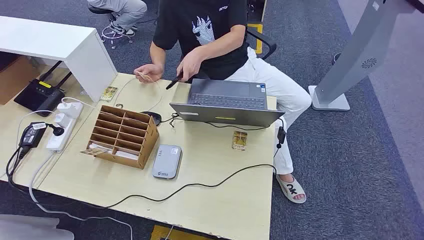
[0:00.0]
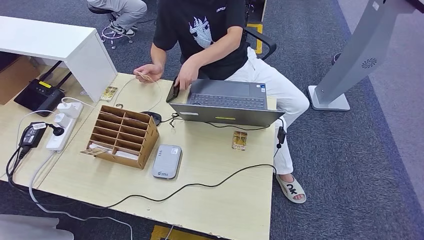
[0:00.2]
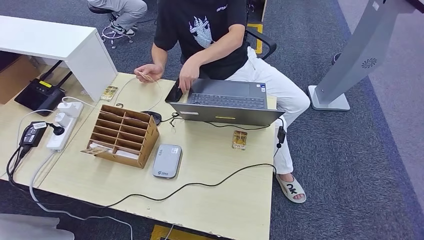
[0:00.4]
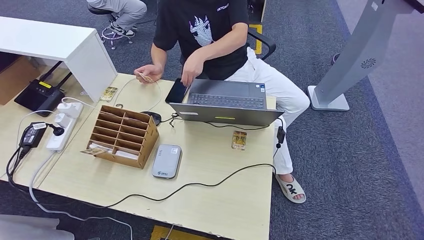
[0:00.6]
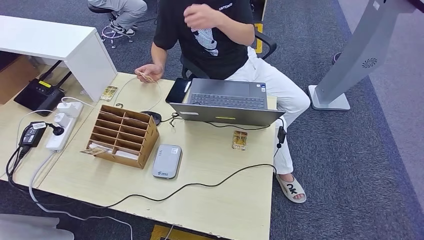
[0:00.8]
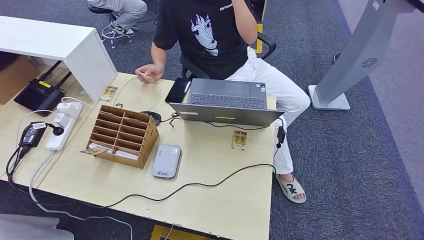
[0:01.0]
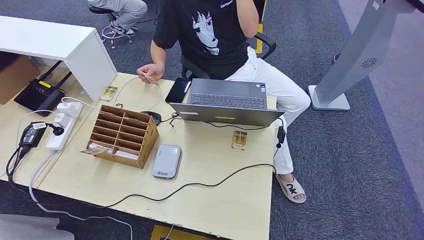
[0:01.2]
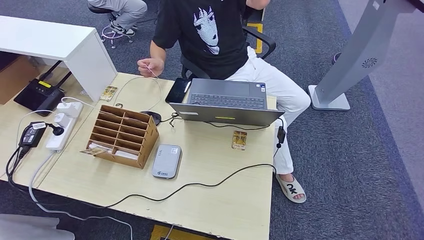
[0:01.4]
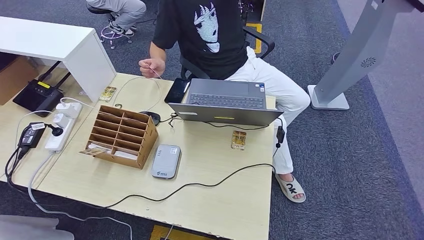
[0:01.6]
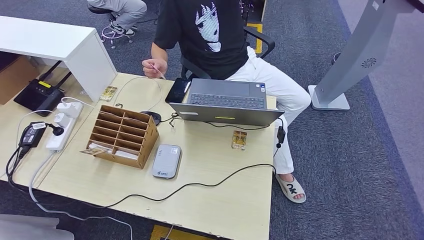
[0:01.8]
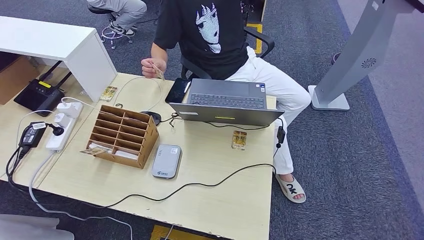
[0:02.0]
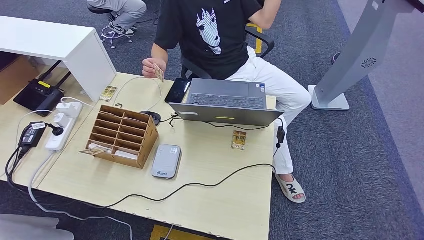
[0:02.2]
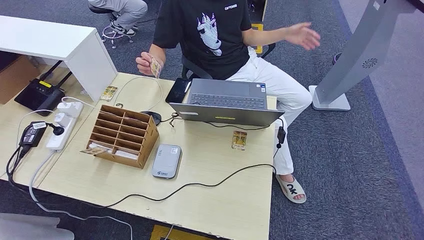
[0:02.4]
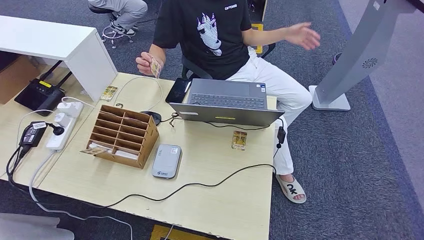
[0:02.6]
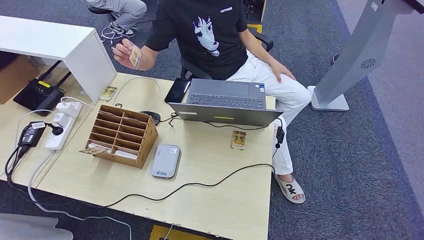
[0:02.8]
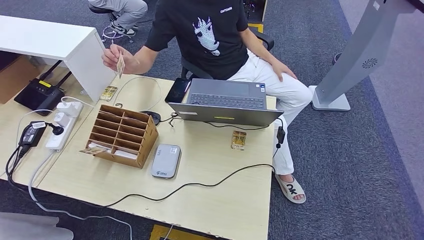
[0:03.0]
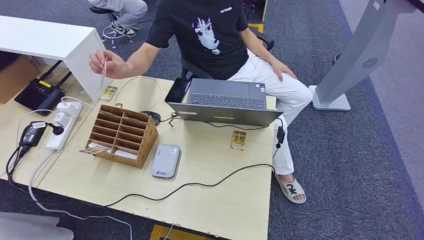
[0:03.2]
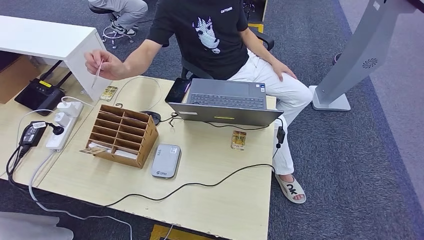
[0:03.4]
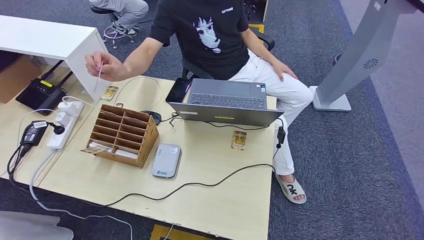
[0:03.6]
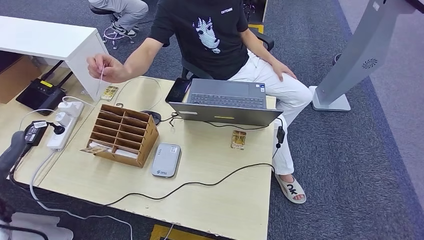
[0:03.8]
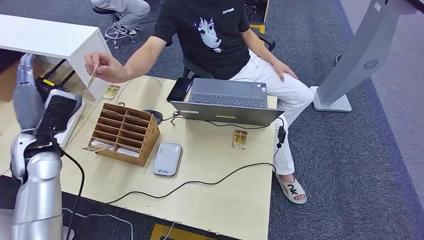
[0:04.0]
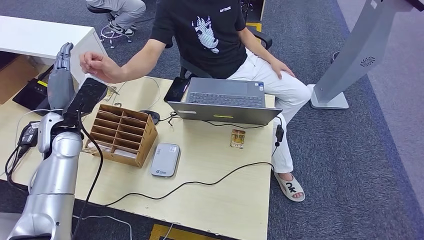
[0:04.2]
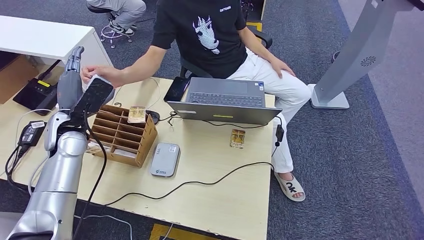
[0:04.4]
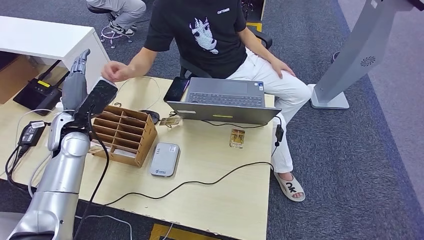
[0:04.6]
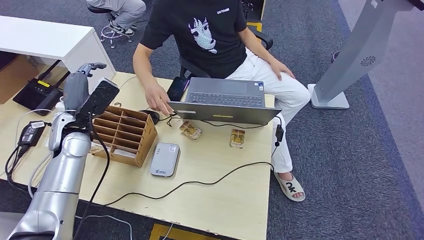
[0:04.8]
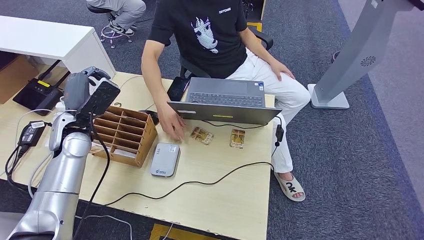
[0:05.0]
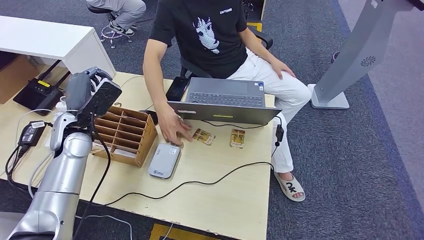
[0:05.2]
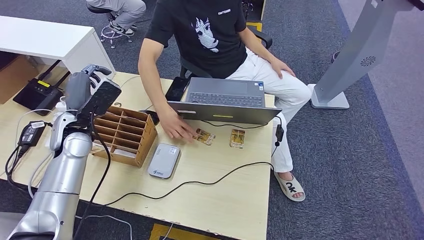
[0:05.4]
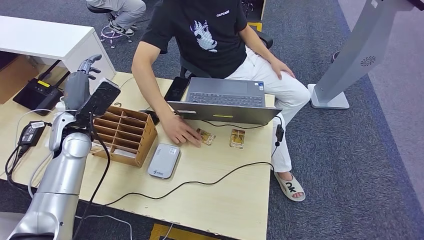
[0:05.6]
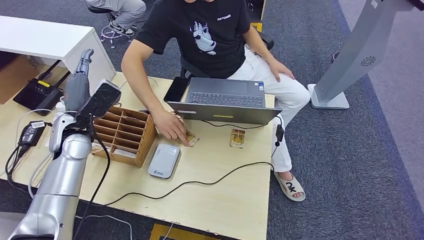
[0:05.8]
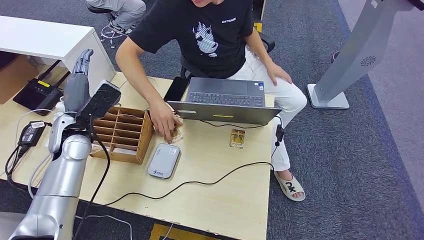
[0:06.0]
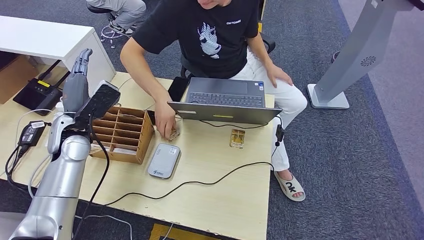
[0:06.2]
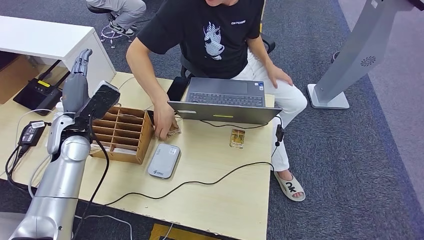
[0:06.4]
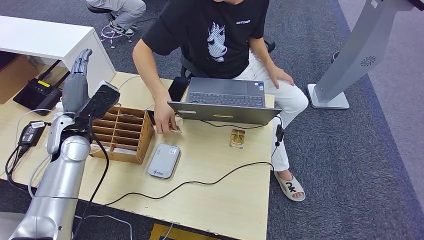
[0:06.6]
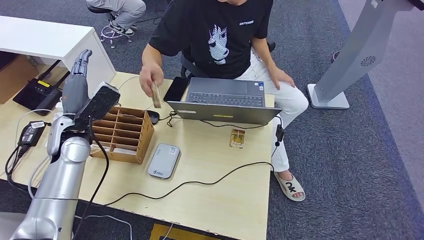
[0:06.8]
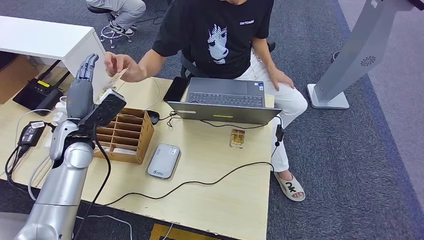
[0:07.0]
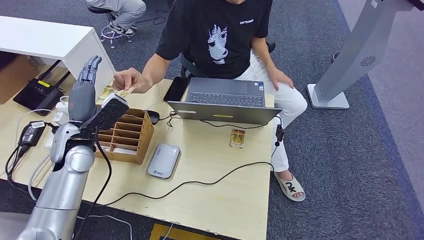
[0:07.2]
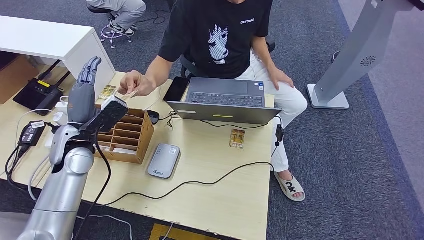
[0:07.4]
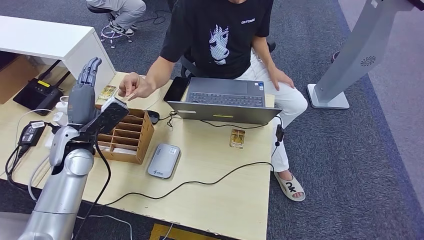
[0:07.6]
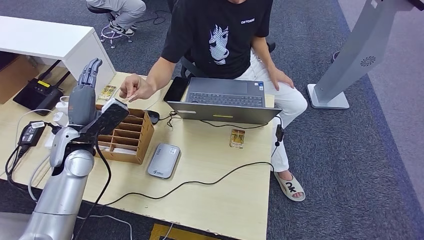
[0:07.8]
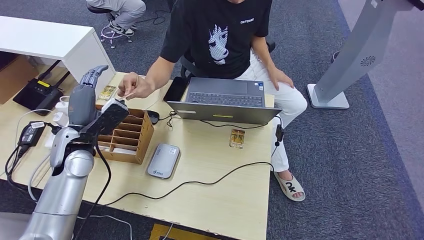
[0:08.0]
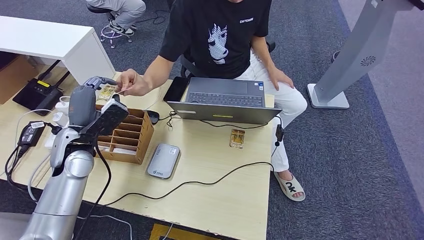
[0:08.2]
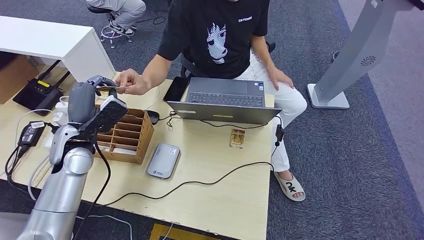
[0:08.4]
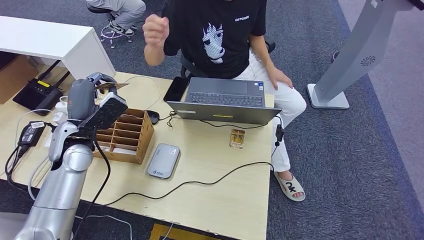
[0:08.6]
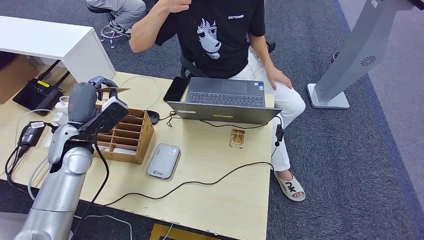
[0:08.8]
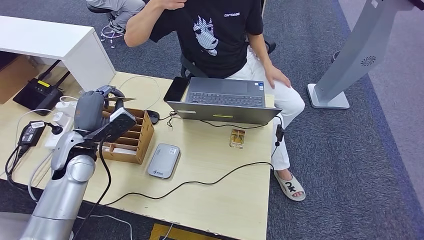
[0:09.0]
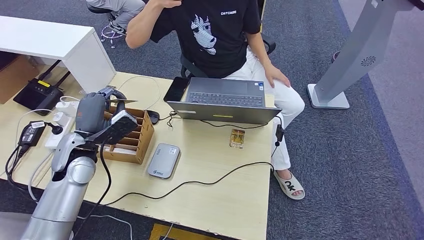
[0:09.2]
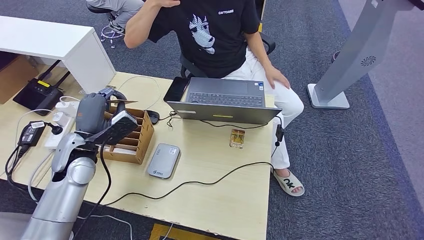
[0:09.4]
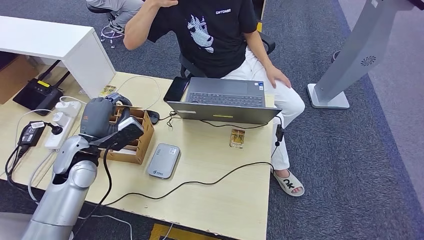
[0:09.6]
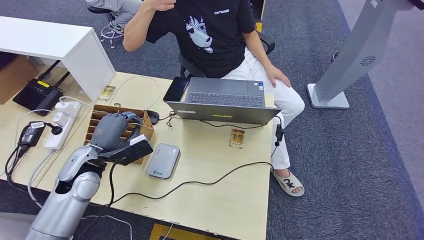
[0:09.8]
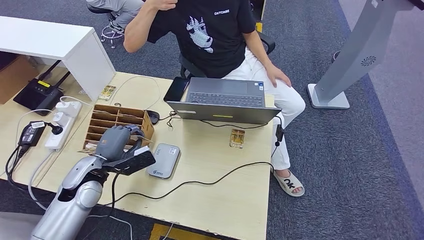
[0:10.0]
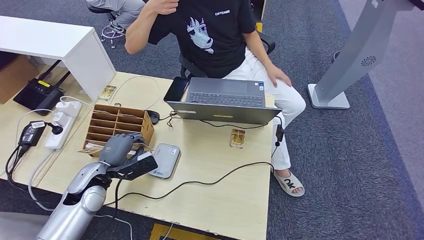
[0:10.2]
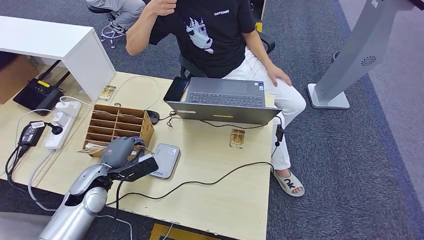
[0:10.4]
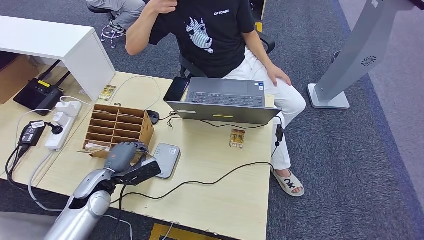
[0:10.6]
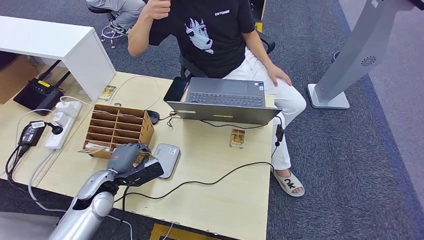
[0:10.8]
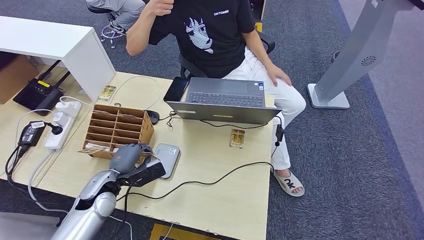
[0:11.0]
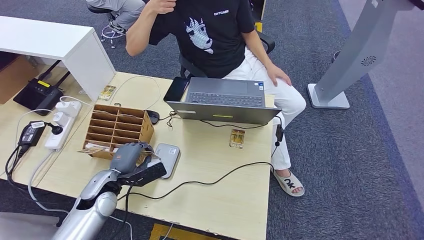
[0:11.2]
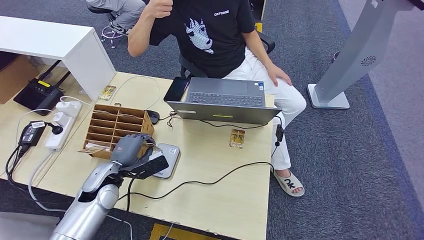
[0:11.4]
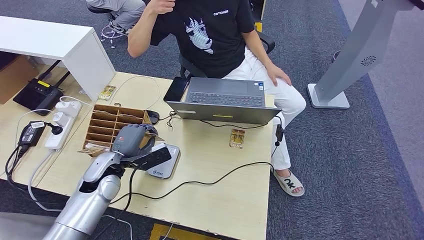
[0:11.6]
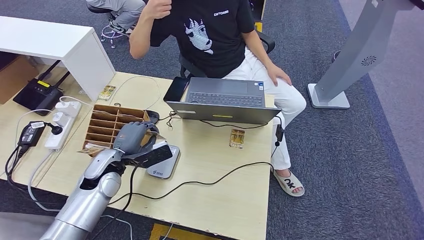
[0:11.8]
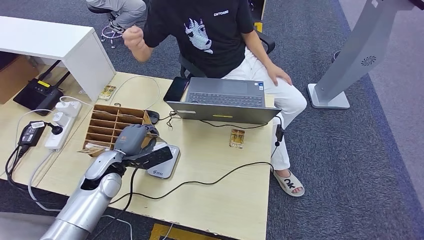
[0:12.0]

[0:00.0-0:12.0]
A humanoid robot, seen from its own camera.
Step, 0:00.0 to 0:08.4: Take the ID card from the person's hand.
0:01.6 to 0:03.0: The left hand travels upward by approximately 30 cm.
0:03.0 to 0:04.4: The left hand moves forward, about 25 cm.
0:04.4 to 0:06.0: Neither hand changes place.
0:06.0 to 0:09.0: There are only small adjustments of the hands.
0:09.0 to 0:10.4: The left hand moves downward, roughly 10 cm.
0:10.4 to 0:12.0: The left hand changes place by approximately 5 cm.

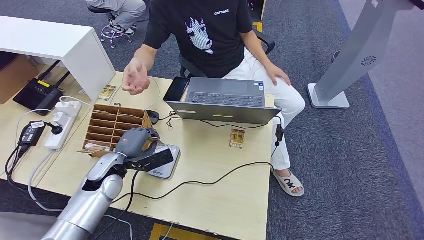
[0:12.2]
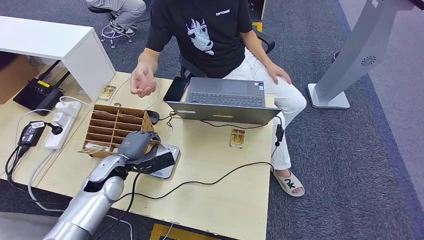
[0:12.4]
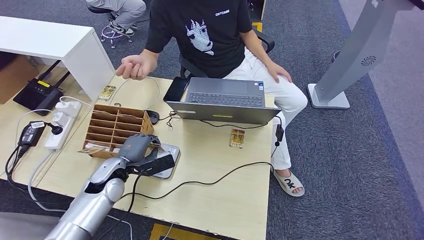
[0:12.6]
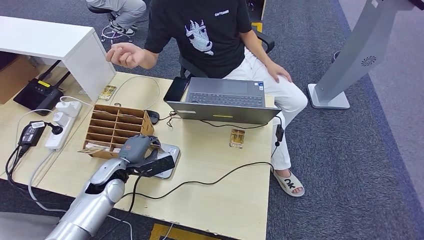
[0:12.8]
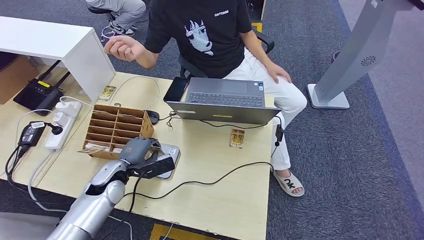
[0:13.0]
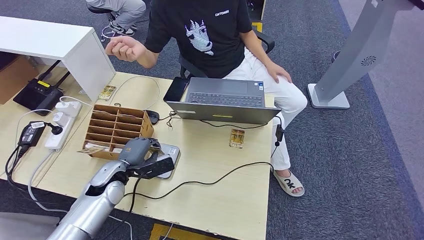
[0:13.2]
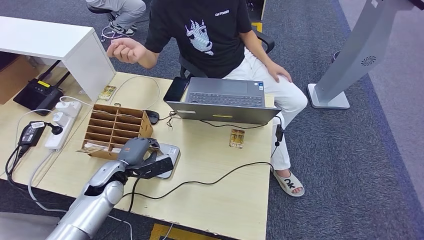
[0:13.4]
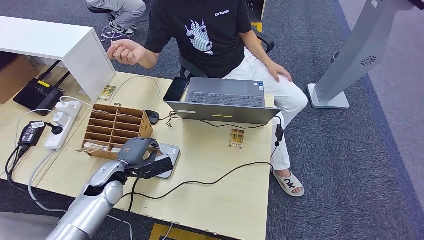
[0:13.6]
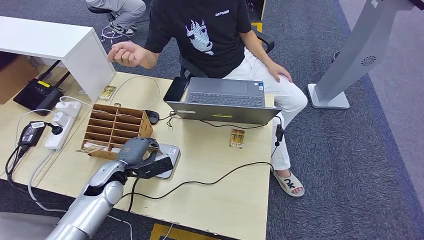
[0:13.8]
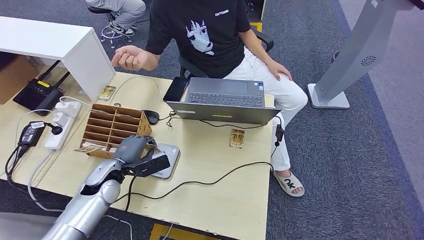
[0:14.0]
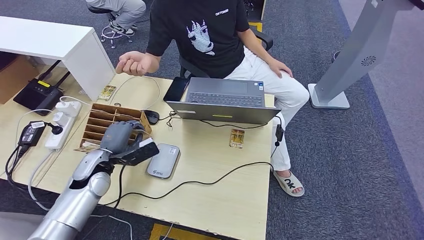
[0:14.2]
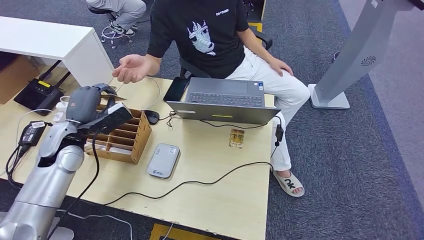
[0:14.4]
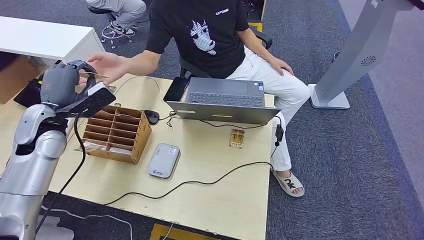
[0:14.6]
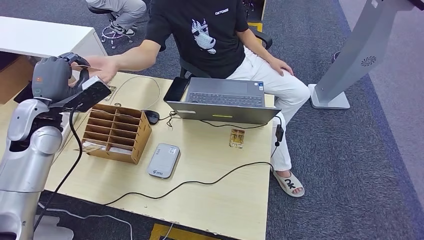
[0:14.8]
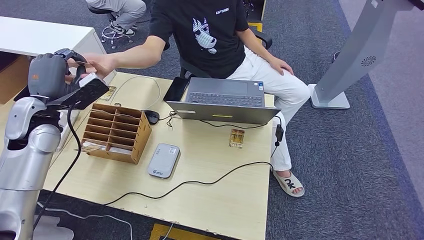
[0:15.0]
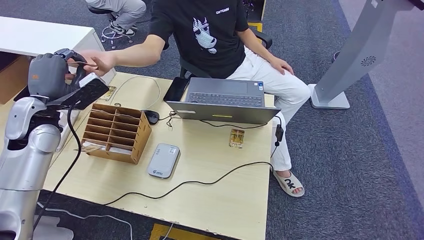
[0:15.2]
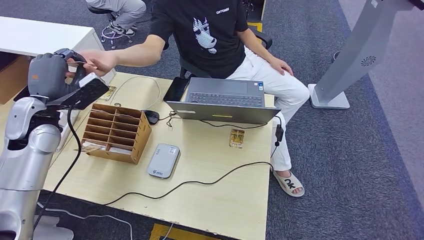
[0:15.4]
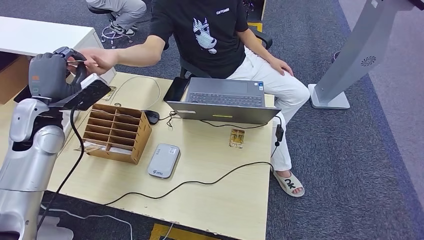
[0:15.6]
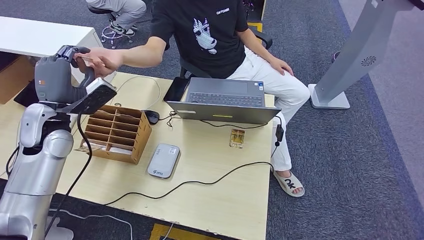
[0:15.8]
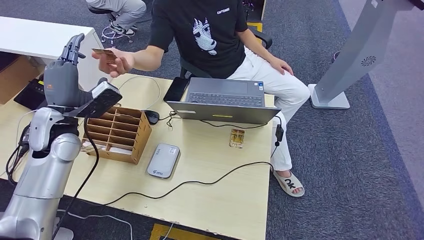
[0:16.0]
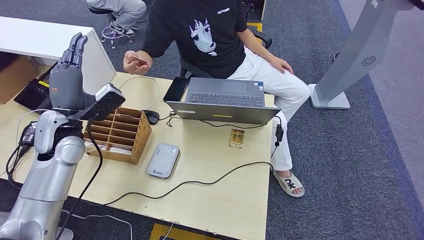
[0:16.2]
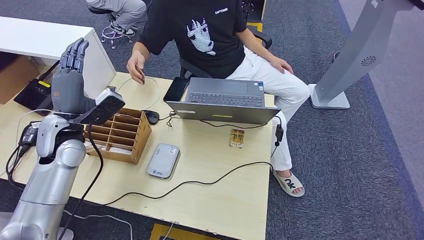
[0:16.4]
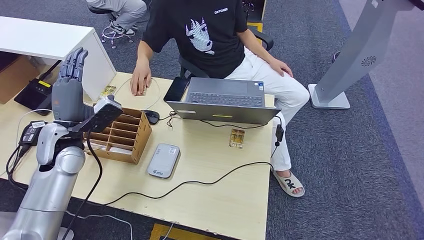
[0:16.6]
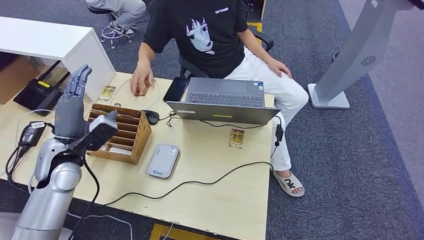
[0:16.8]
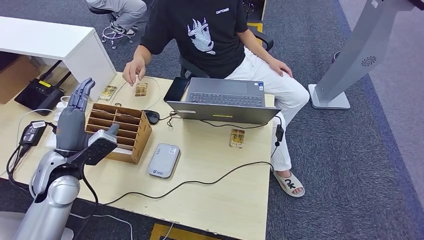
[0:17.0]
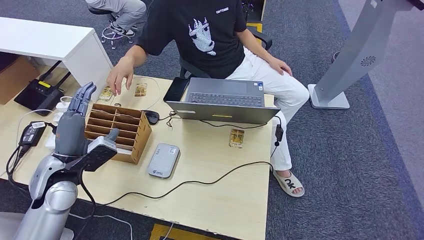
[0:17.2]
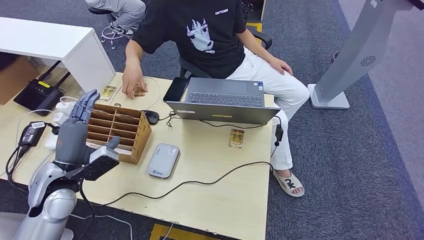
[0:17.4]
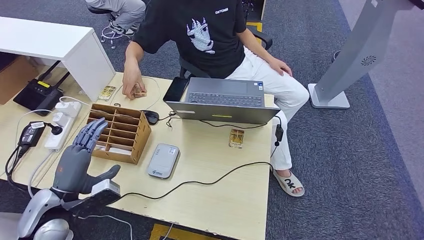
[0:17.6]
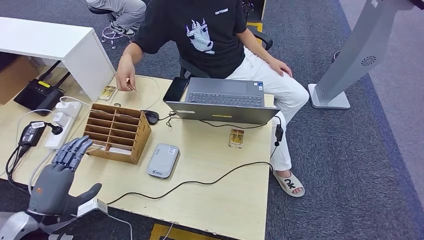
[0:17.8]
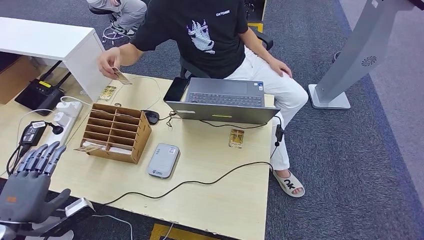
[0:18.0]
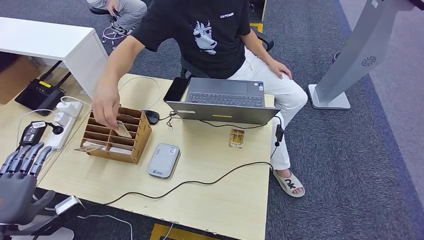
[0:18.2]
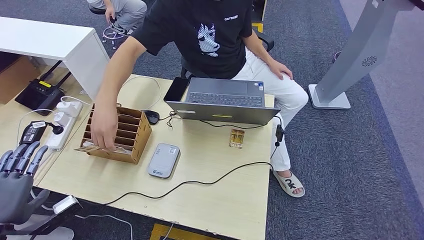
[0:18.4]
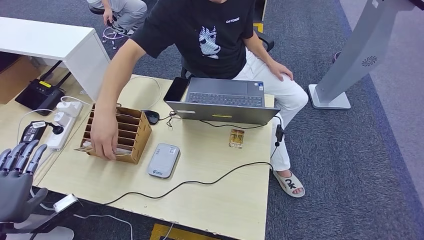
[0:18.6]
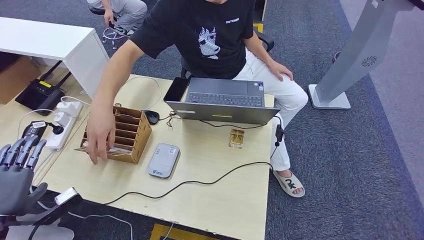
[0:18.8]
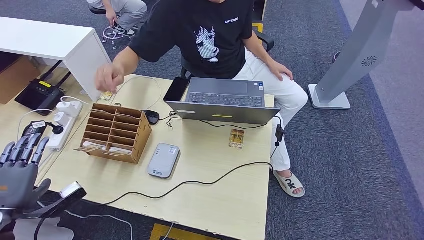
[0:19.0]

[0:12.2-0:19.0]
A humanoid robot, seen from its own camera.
Step, 0:12.8 to 0:16.2: Hand the ID card to the person.
0:12.2 to 0:13.6: The hands stay close to where they were, moving slightly.
0:13.6 to 0:15.0: The left hand moves upward and to the left, approximately 20 cm.
0:15.0 to 0:16.2: The left hand travels to the right by some 5 cm.
0:16.2 to 0:17.6: The left hand shifts approximately 20 cm backward and downward.
0:17.6 to 0:19.0: The left hand heads to the left and backward, covering about 10 cm.